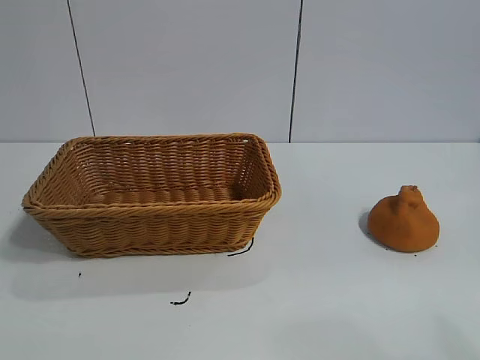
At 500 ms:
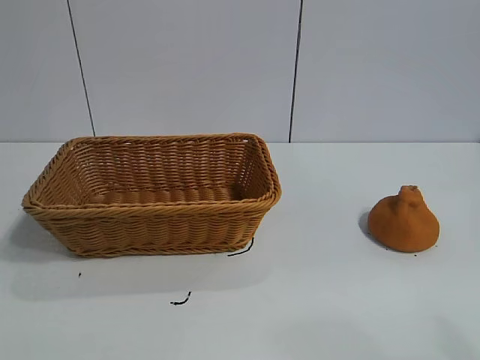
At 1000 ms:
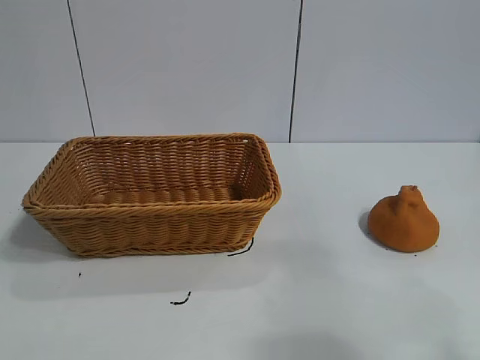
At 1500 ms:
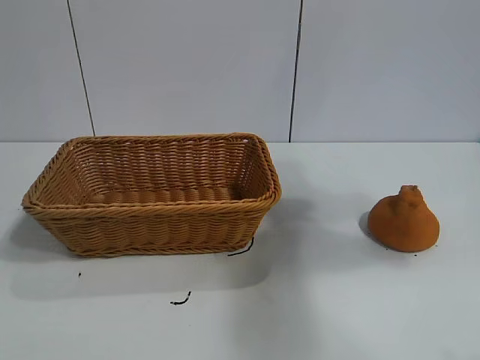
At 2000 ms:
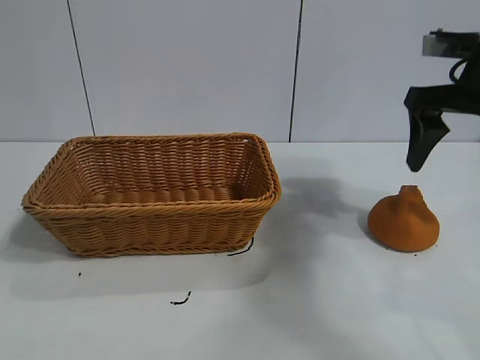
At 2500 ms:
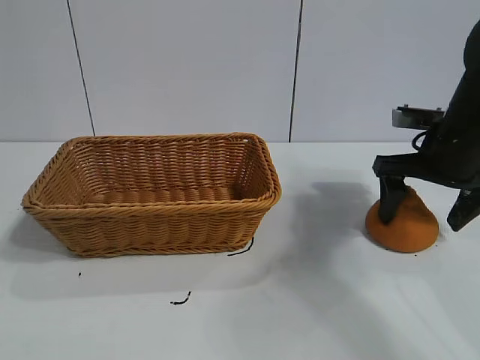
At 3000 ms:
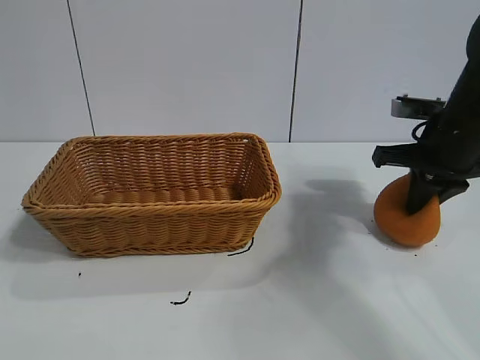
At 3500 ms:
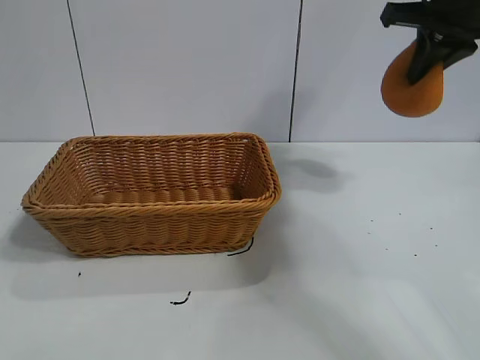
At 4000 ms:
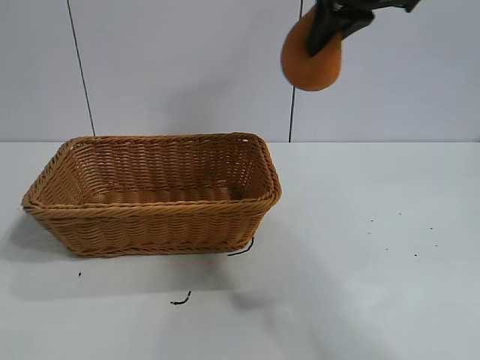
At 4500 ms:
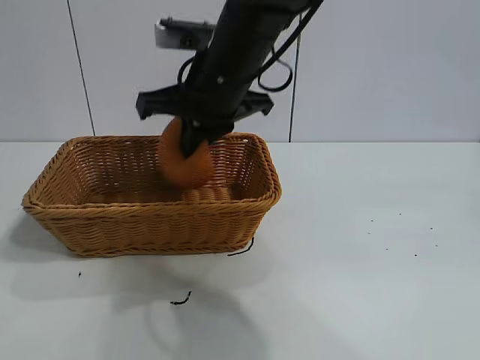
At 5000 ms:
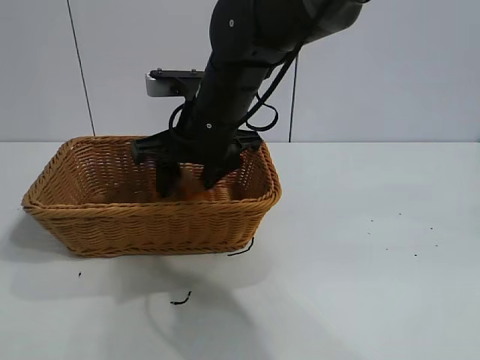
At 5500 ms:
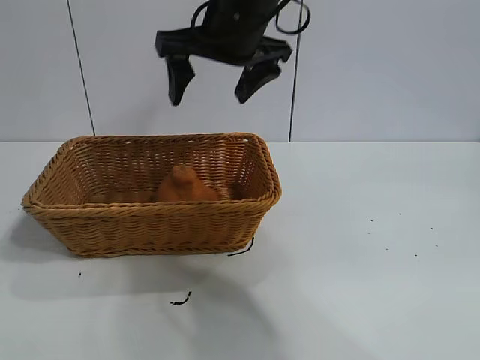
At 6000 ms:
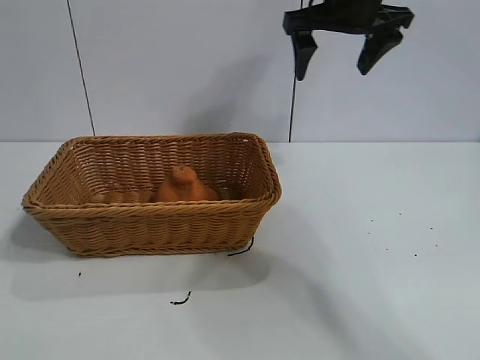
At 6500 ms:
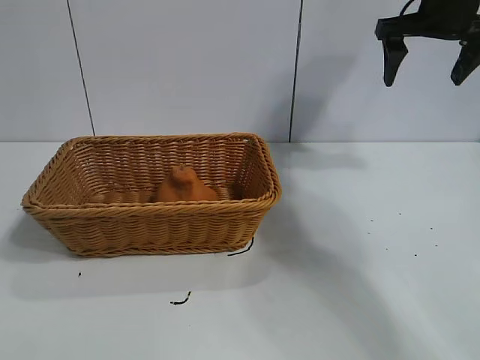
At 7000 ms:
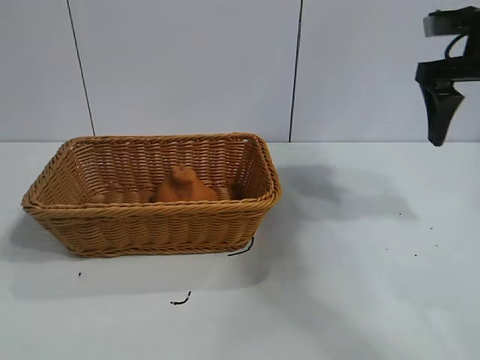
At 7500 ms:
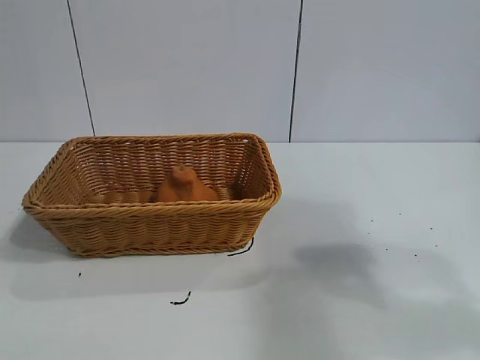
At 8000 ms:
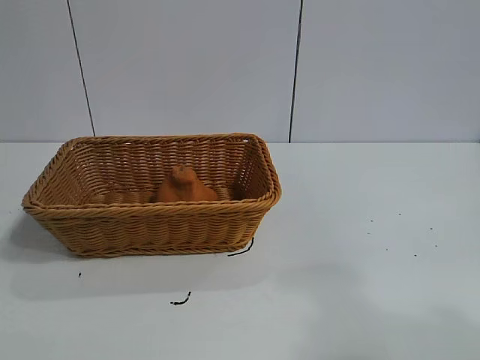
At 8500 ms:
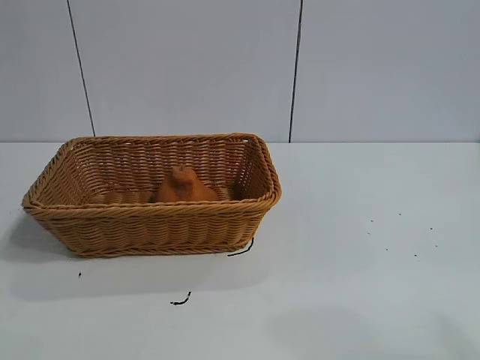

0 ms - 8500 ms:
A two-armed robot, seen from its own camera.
Task of the whole recording: pick up the orange and put it into the basket.
Step, 1000 ms - 3000 ms: Grasp the orange with right gripper.
Step, 3500 ms - 5000 ms: Place the orange in the basket with right gripper.

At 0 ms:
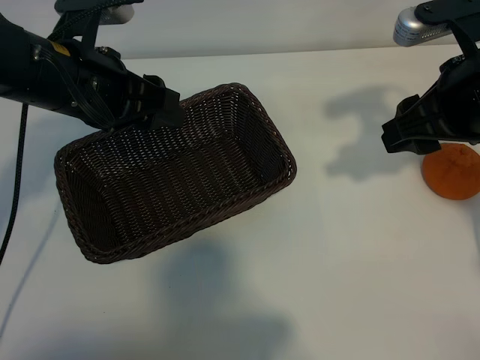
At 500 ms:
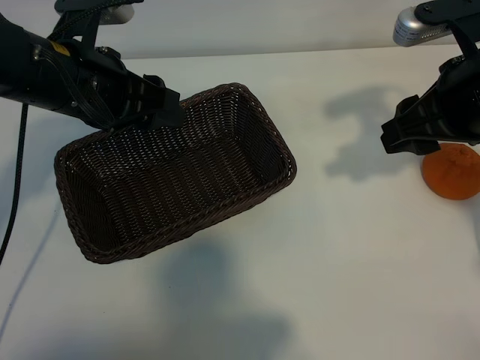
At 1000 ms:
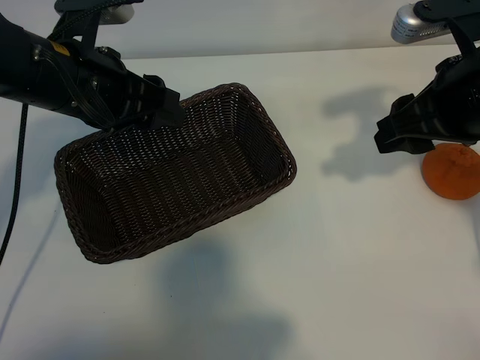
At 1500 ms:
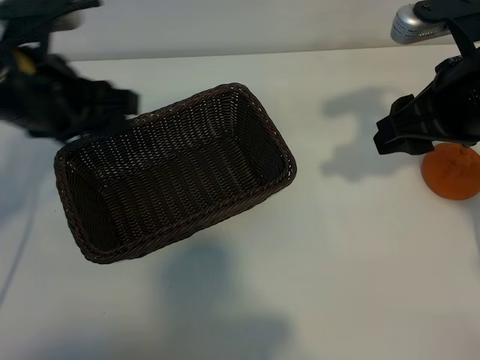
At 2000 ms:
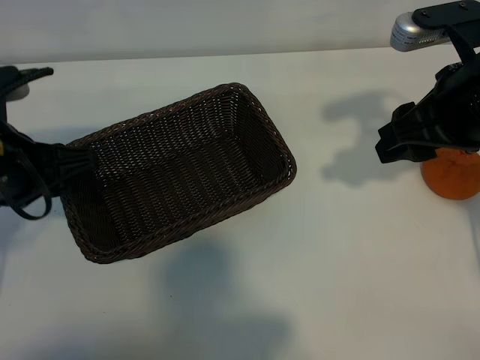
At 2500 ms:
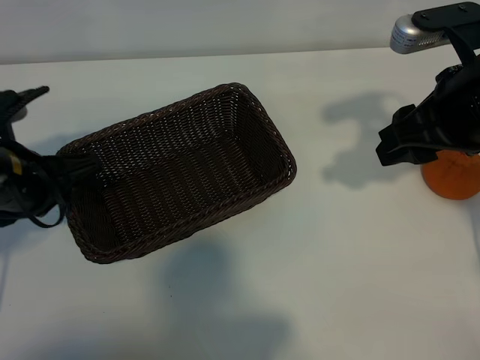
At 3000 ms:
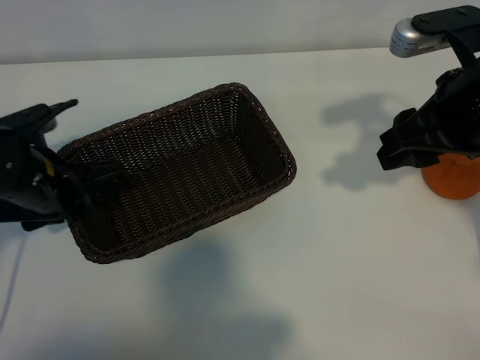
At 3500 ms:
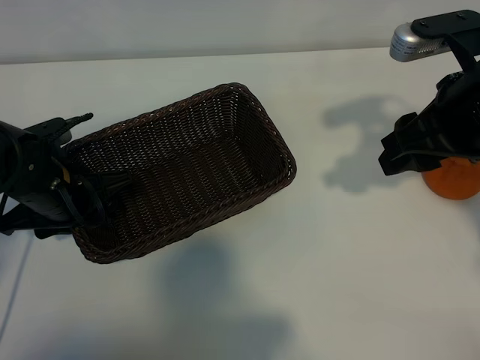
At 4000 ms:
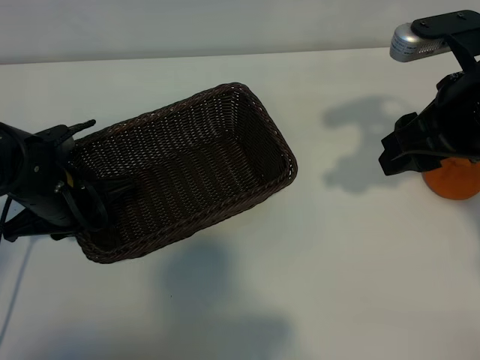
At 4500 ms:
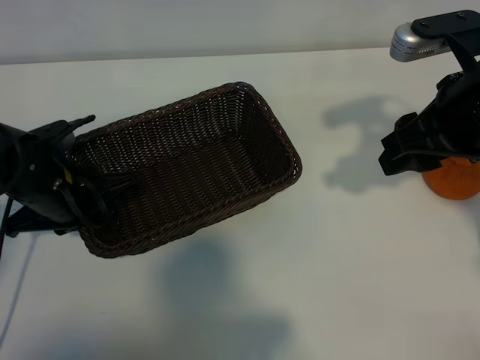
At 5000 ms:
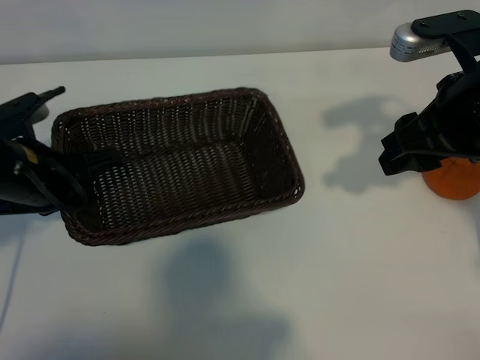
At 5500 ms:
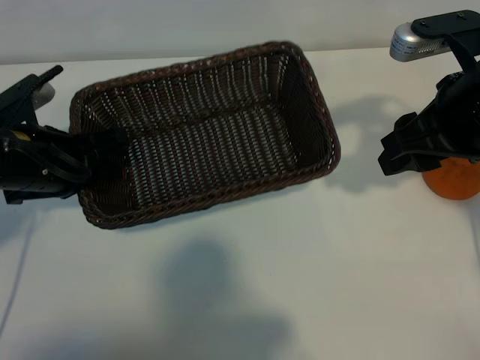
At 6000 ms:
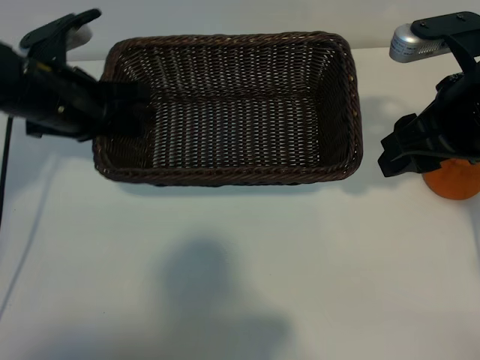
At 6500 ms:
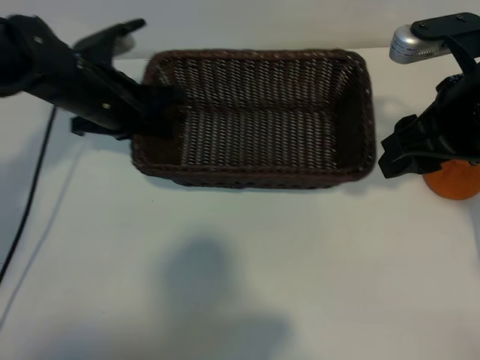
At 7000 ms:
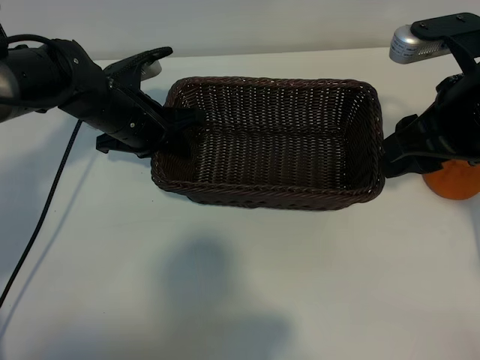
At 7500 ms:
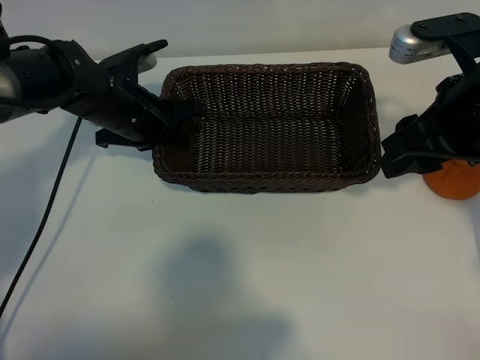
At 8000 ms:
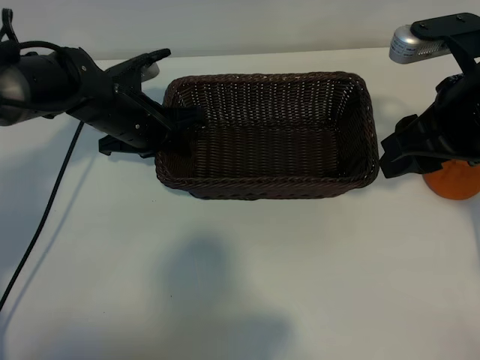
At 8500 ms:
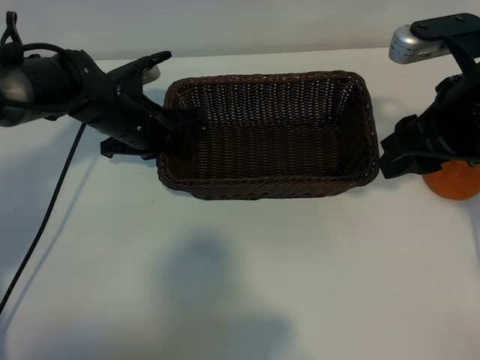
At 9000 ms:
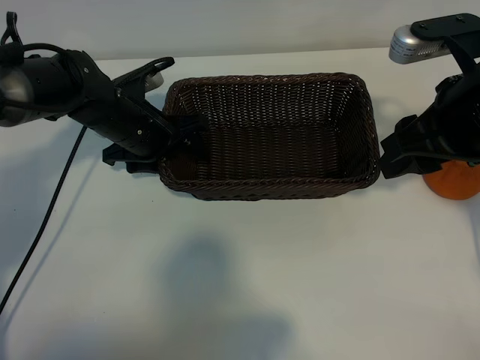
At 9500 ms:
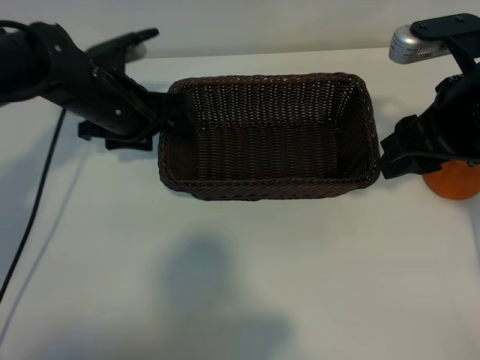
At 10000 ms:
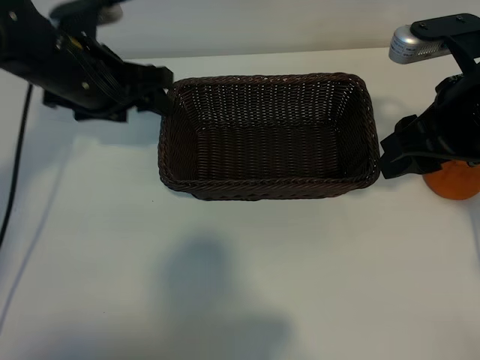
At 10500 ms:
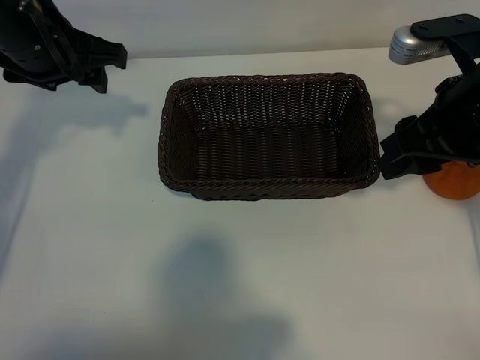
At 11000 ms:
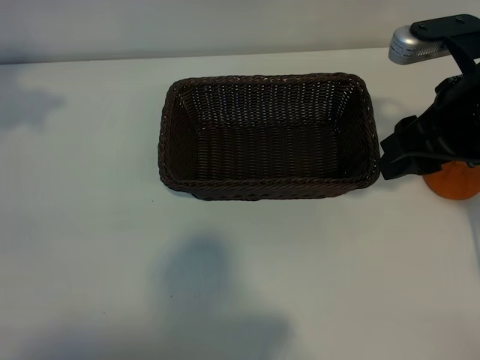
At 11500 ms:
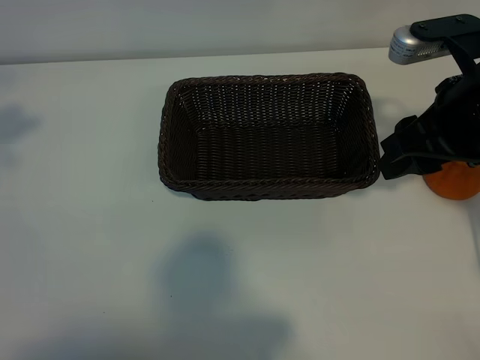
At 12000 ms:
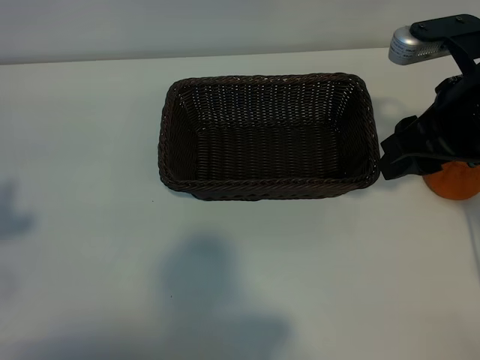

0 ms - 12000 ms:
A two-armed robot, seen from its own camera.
Task of the whole recording: pick up the orange and put it into the basket.
Step, 1000 ms - 4000 ms: Grasp the basket with left gripper.
Step, 4500 ms - 8500 ms: Place the basket in the center of view with left gripper.

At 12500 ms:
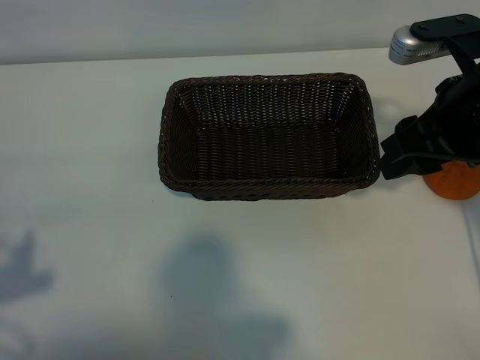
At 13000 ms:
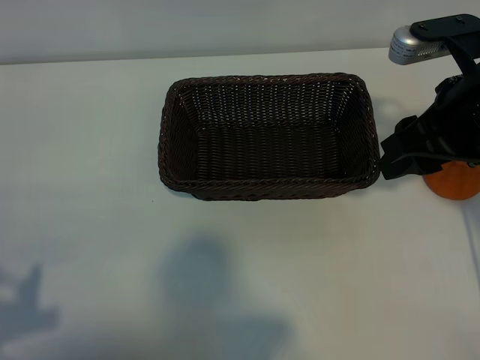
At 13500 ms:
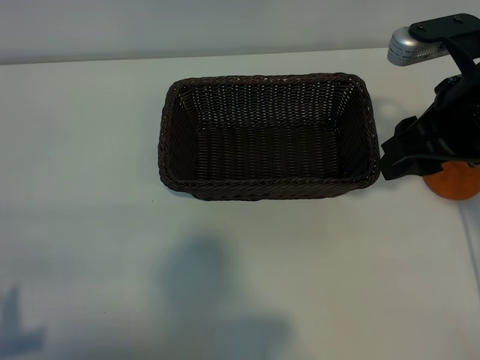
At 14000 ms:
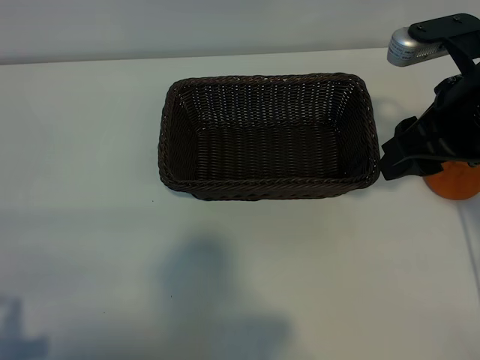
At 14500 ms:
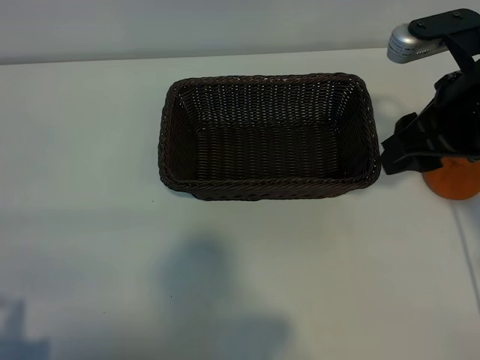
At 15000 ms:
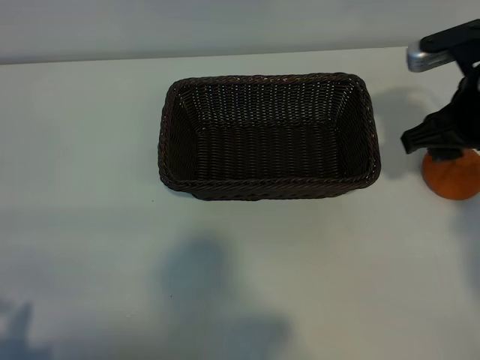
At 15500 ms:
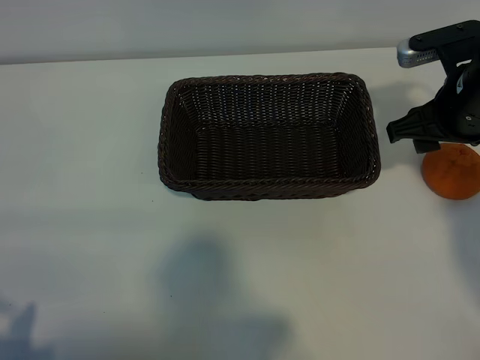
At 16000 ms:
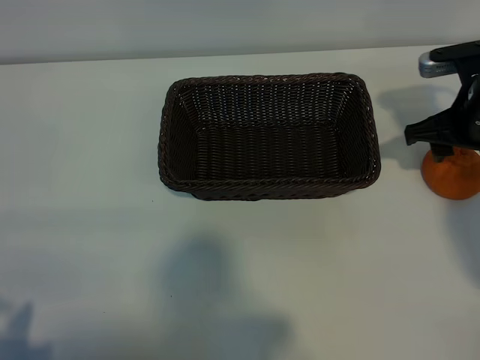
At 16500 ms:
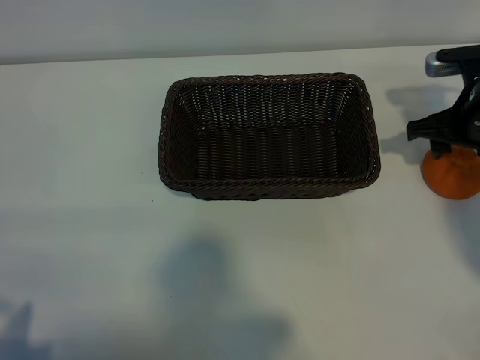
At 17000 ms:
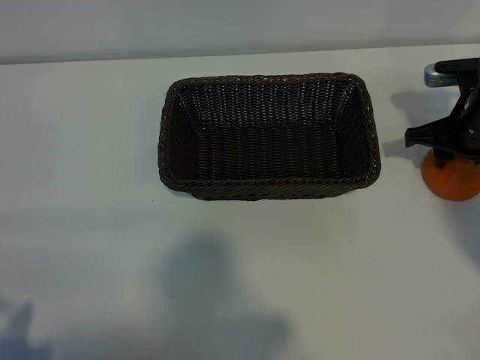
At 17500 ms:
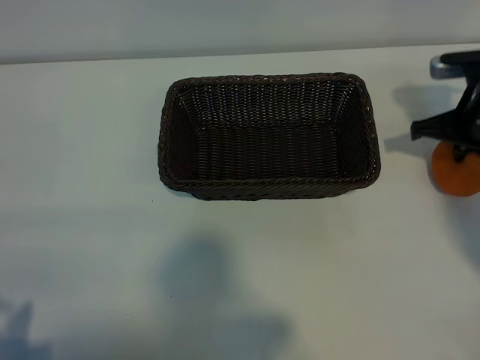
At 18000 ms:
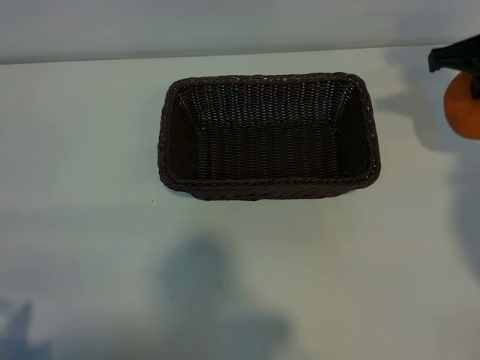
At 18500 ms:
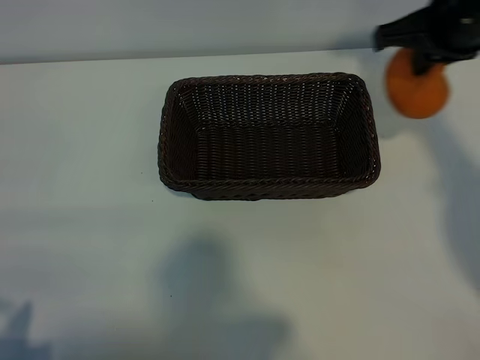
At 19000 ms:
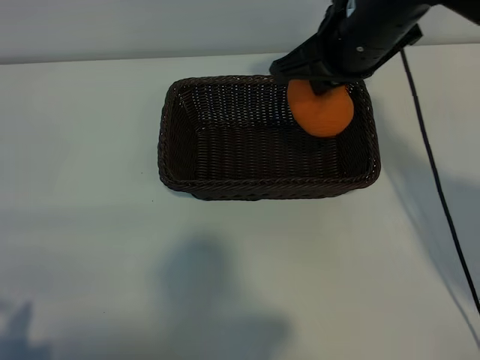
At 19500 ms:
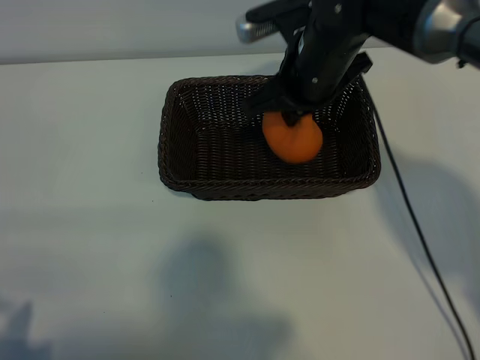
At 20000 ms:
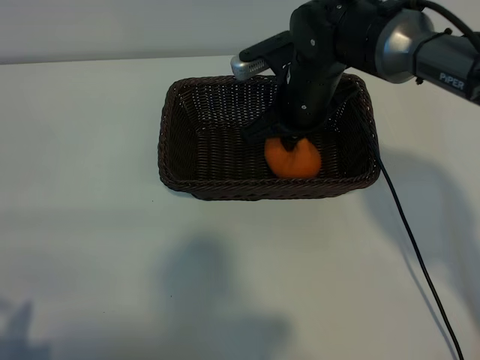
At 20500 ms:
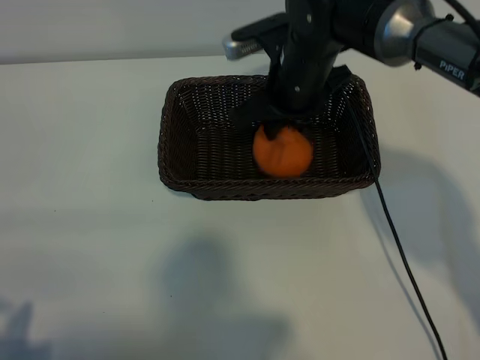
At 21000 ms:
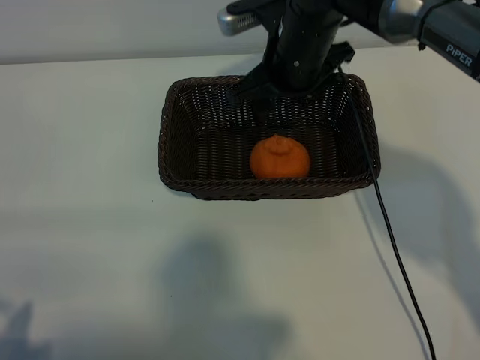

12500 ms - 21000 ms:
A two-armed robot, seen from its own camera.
Task of the whole recording: pick up the orange and put it into the basket.
Step, 12500 ms - 17000 ms: Grasp the orange with right gripper.
Step, 17500 ms - 20500 ms: Place the orange in the basket with right gripper.
